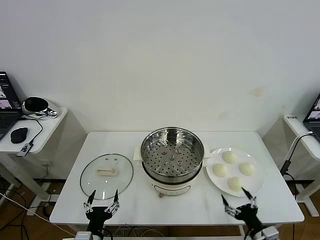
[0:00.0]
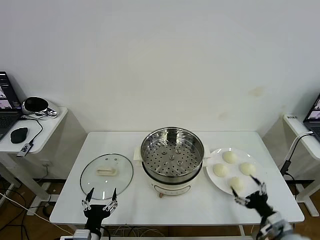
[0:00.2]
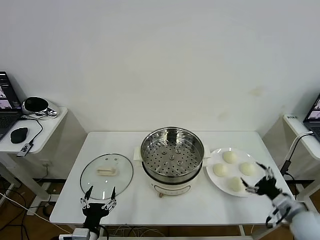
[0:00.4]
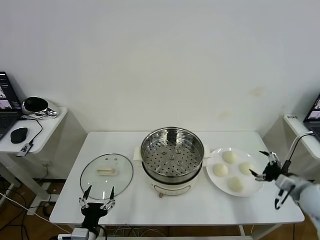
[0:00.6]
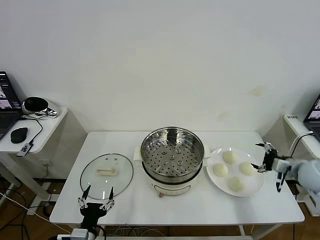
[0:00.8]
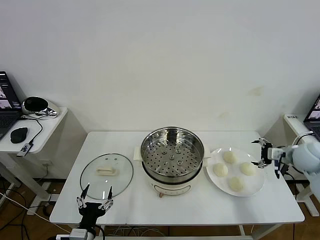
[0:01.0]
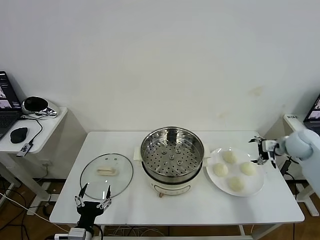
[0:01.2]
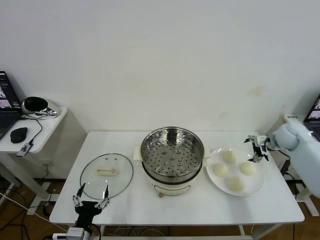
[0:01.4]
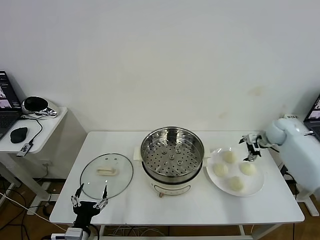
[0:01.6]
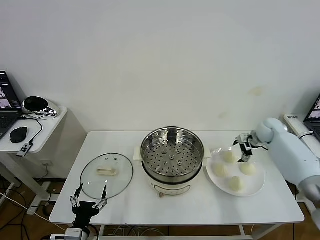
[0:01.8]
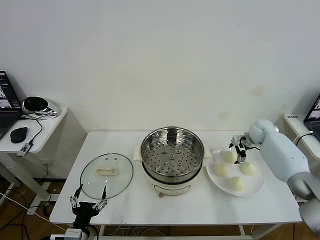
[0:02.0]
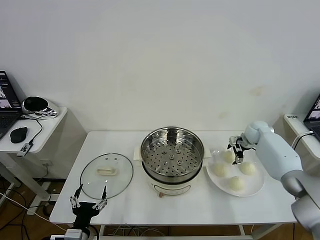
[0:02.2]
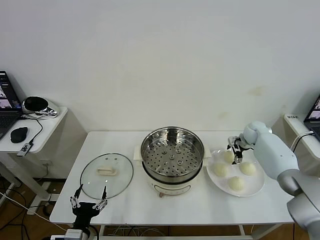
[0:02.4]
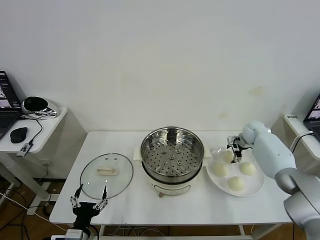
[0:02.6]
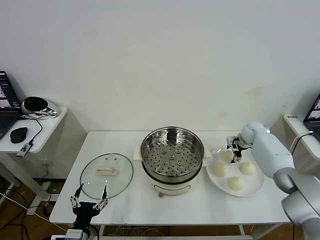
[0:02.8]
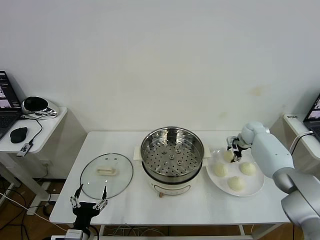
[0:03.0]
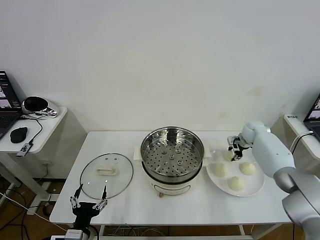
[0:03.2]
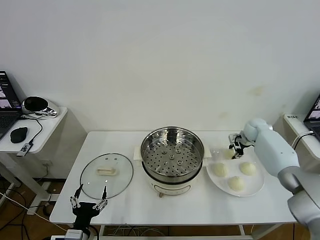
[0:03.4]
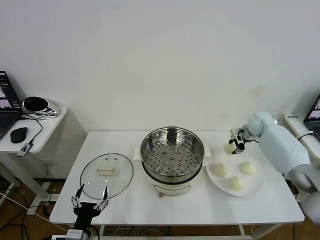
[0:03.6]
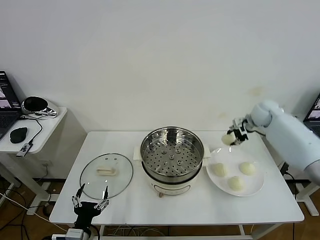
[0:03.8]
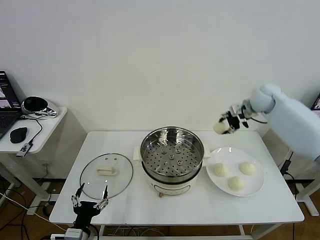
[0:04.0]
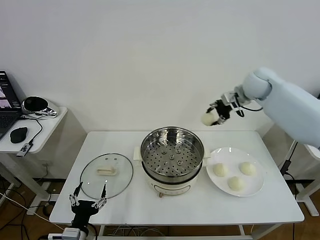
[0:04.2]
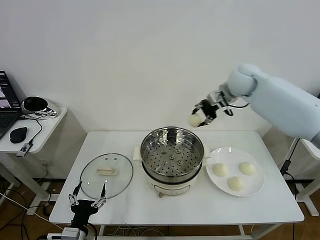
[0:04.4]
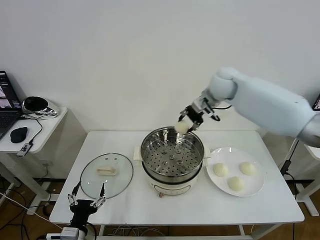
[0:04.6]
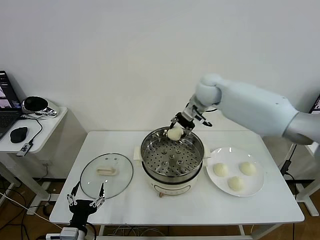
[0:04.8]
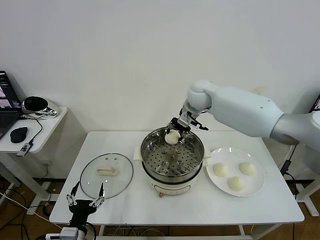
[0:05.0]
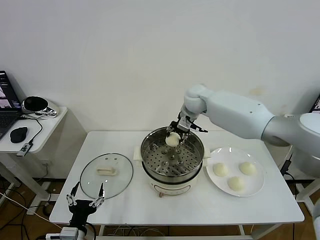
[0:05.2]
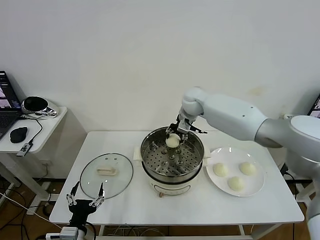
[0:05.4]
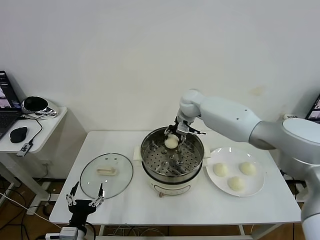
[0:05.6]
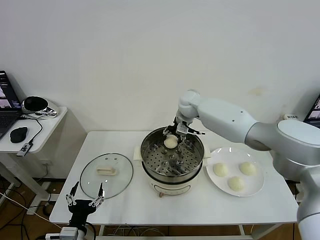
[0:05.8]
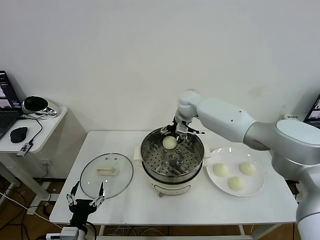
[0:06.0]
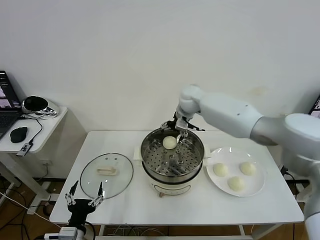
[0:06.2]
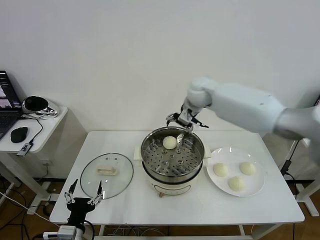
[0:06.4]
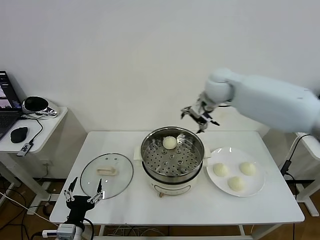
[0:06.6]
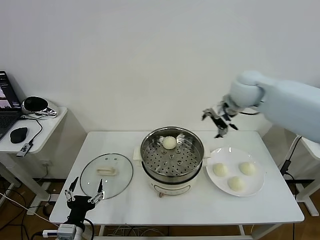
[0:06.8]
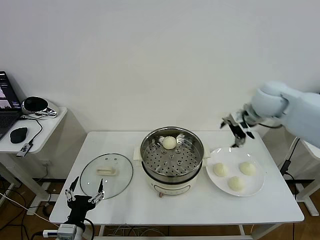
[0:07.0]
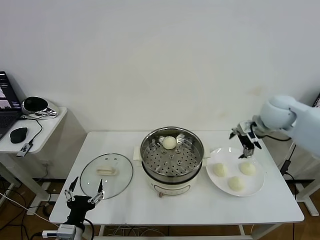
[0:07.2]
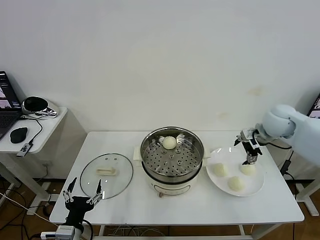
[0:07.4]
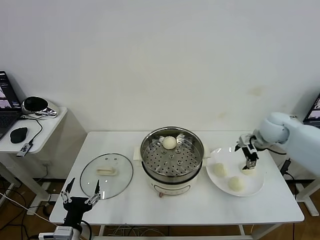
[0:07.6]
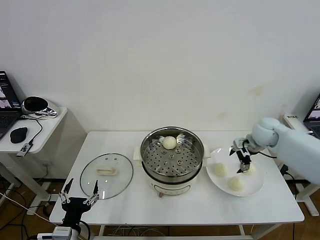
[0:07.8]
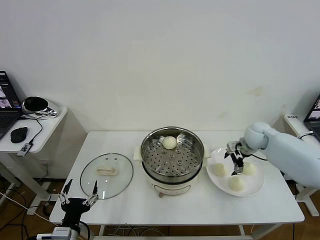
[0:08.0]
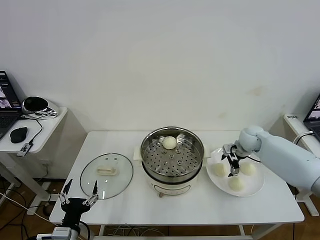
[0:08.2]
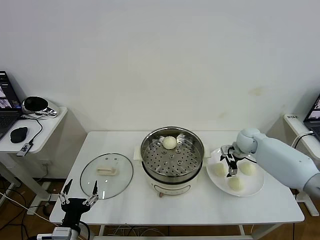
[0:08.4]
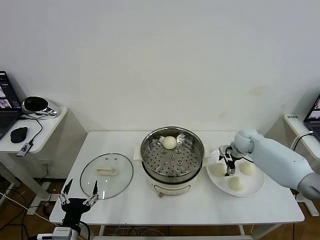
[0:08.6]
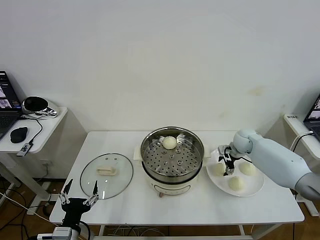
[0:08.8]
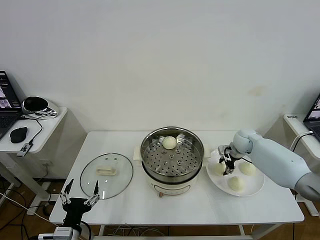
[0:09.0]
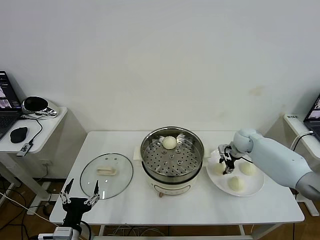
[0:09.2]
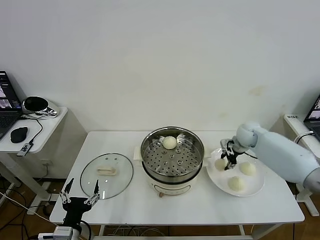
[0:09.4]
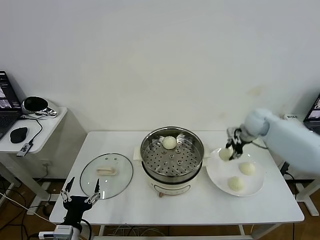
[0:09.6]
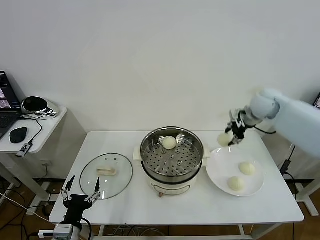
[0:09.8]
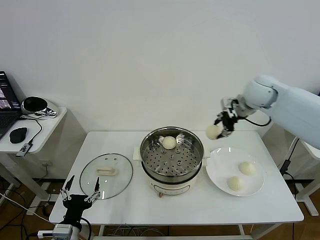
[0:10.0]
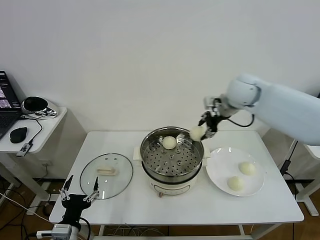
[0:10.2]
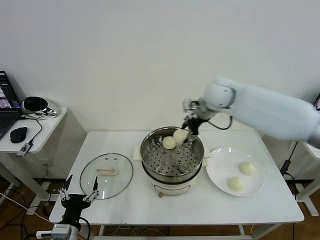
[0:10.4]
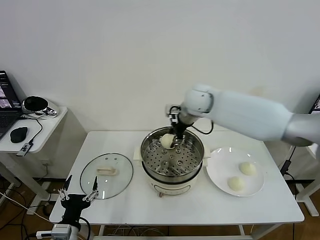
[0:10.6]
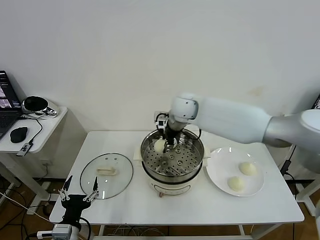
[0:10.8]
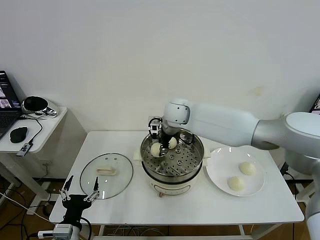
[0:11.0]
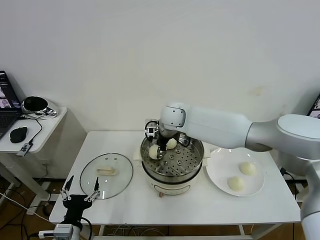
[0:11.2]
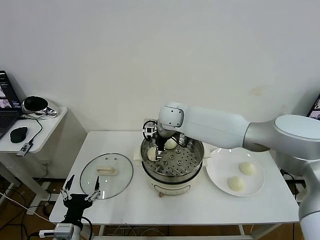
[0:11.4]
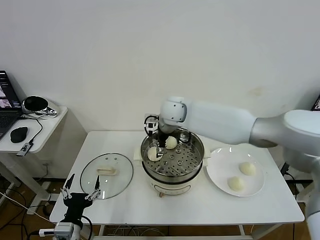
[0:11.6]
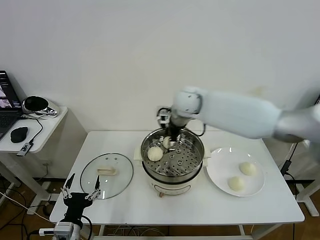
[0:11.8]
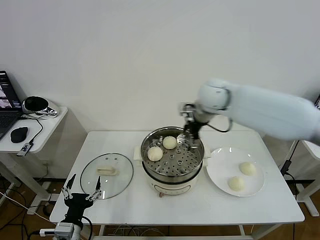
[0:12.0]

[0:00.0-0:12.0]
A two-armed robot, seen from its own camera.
Task of the whole recording: take steamed baozi put them in steamer then cover it.
Step, 0:00.0 to 0:03.0: Grasp the baozi in the plate with right gripper.
Step, 0:03.2 to 0:06.0: Place the baozi on the steamer with right gripper.
Step, 0:06.2 to 0:09.2: Grasp the baozi in the plate with right gripper.
Step, 0:09.4 to 0:11.6: Place the baozi on the steamer with right gripper.
0:01.6 to 0:03.0: The right gripper is displaced downward, forward and to the left by some 10 cm, and closes.
0:03.0 to 0:04.4: The right gripper travels upward and to the left by about 30 cm, and closes.
0:04.4 to 0:06.0: The right gripper shifts approximately 20 cm to the left and downward, and opens its fingers.
0:06.0 to 0:07.6: The right gripper goes approximately 30 cm to the right and backward.
0:07.6 to 0:09.0: The right gripper shifts about 15 cm downward and forward, and closes up.
0:09.0 to 0:10.4: The right gripper travels upward and to the left by approximately 30 cm.
0:10.4 to 0:12.0: The right gripper goes to the left and returns, some 15 cm each way, and opens its fingers.

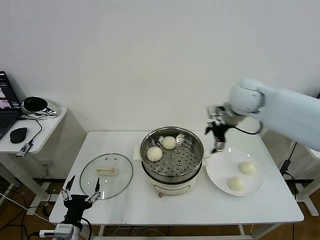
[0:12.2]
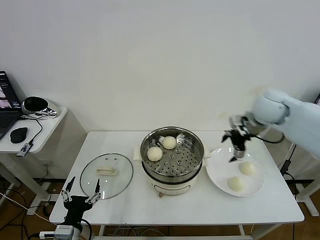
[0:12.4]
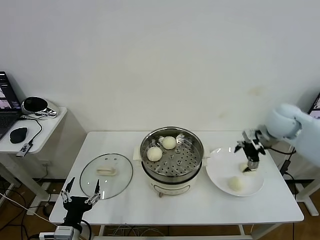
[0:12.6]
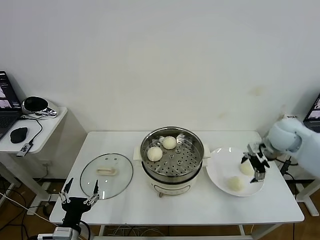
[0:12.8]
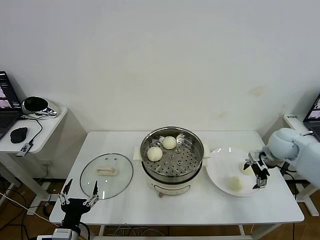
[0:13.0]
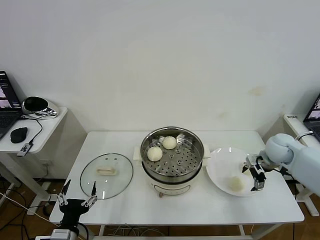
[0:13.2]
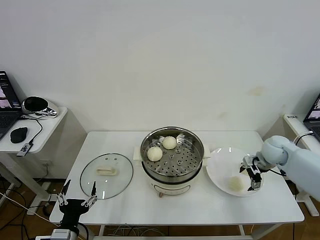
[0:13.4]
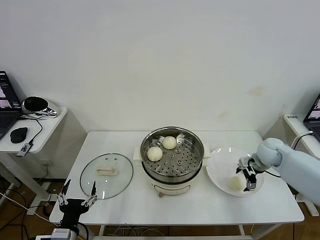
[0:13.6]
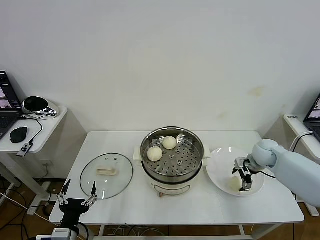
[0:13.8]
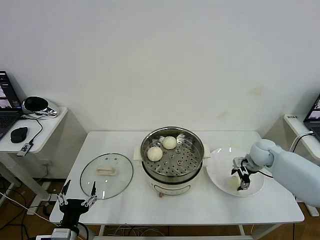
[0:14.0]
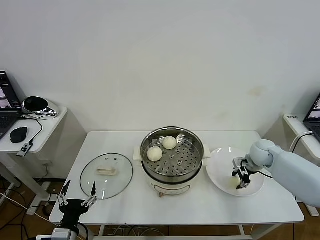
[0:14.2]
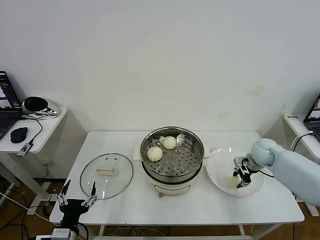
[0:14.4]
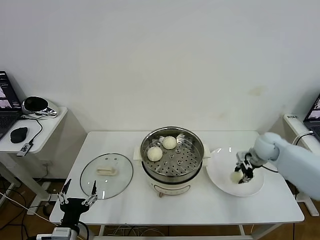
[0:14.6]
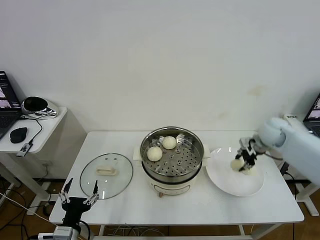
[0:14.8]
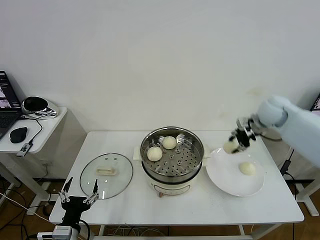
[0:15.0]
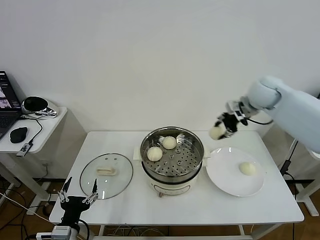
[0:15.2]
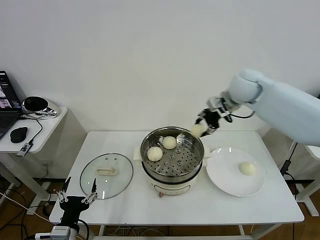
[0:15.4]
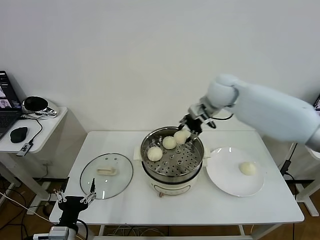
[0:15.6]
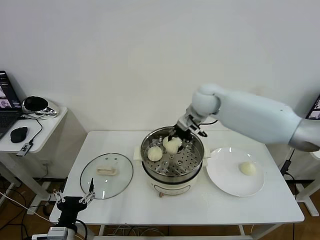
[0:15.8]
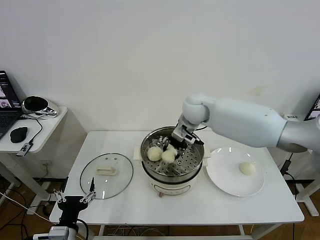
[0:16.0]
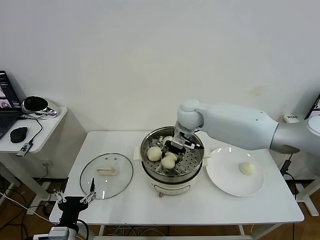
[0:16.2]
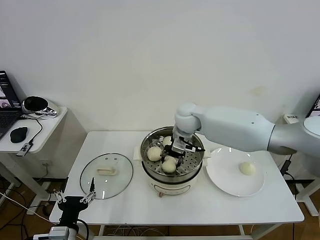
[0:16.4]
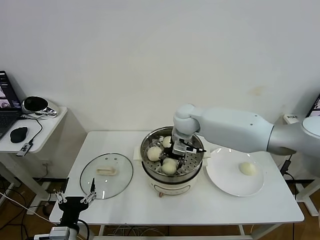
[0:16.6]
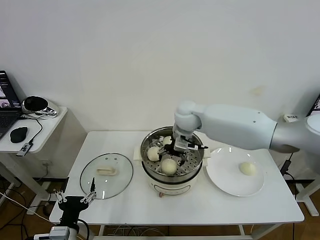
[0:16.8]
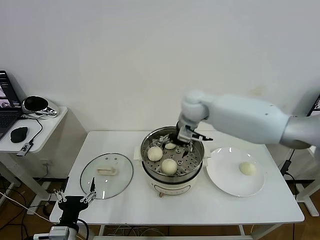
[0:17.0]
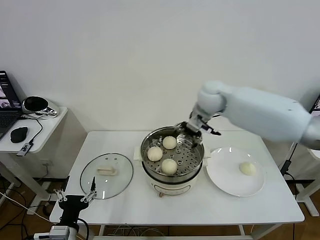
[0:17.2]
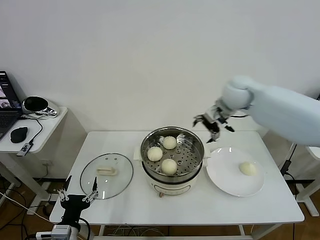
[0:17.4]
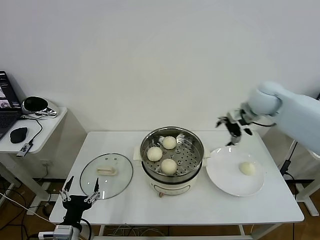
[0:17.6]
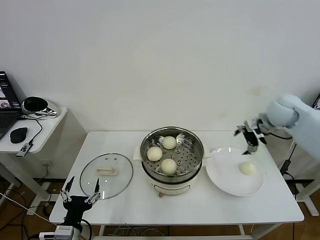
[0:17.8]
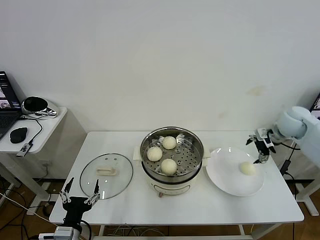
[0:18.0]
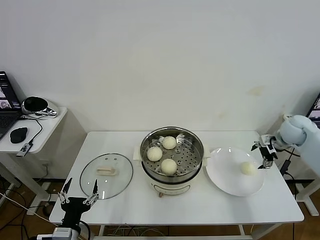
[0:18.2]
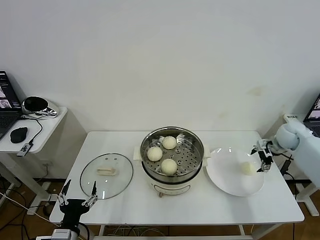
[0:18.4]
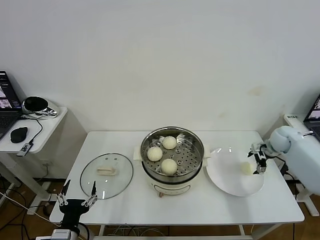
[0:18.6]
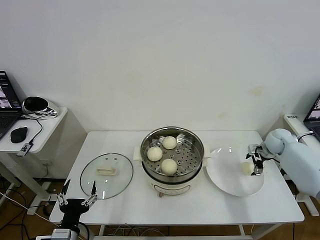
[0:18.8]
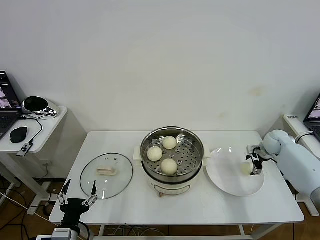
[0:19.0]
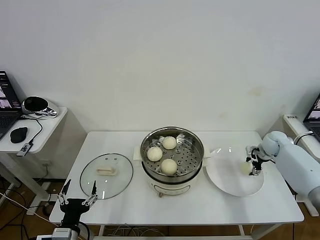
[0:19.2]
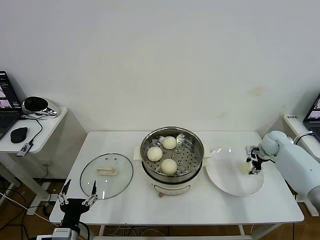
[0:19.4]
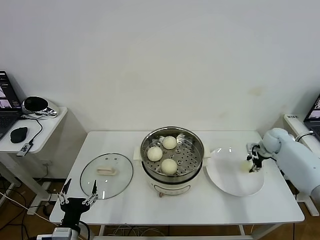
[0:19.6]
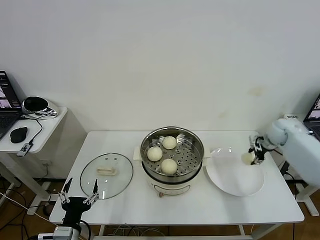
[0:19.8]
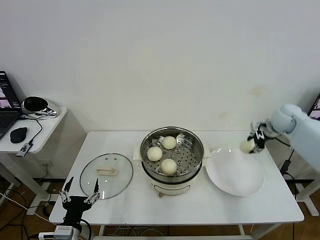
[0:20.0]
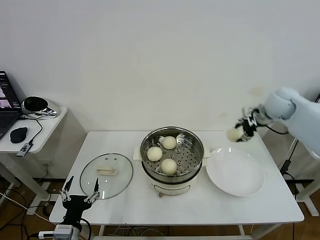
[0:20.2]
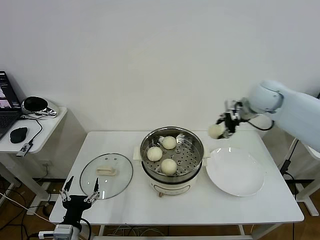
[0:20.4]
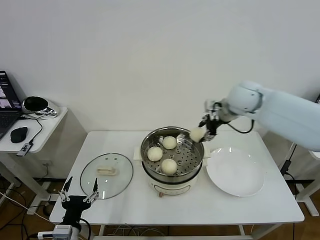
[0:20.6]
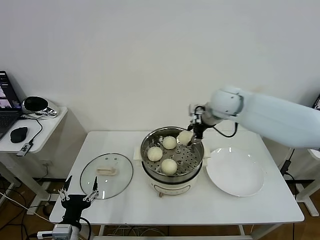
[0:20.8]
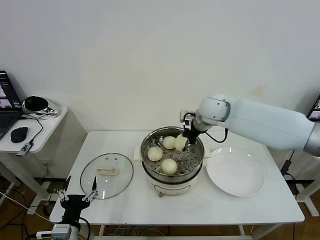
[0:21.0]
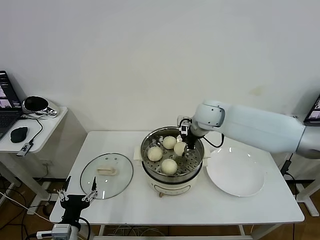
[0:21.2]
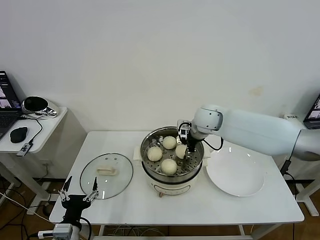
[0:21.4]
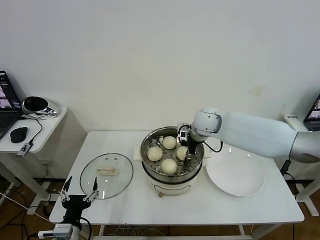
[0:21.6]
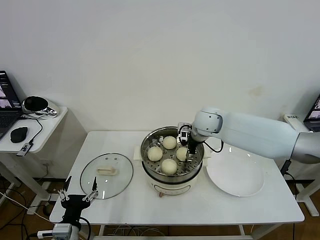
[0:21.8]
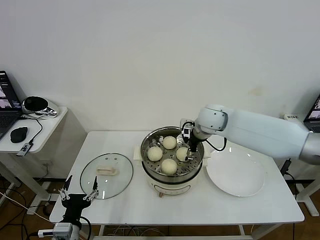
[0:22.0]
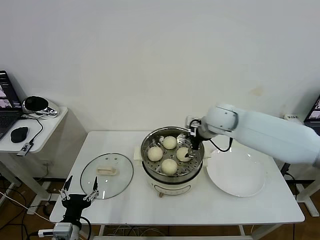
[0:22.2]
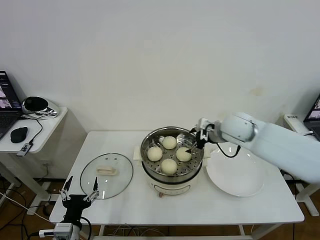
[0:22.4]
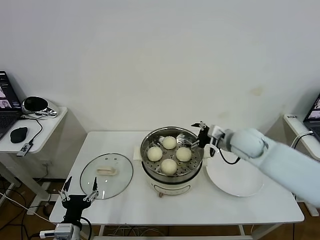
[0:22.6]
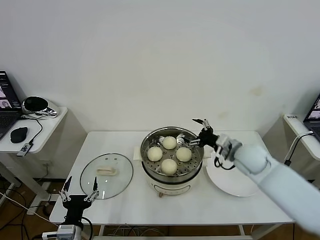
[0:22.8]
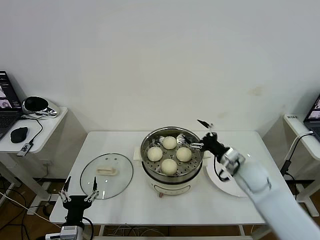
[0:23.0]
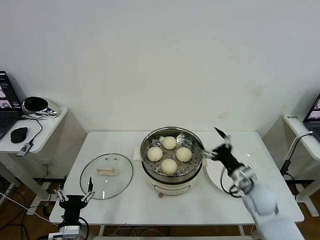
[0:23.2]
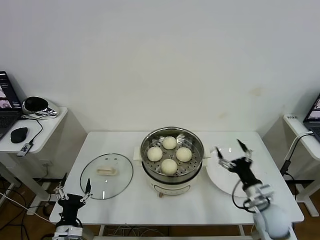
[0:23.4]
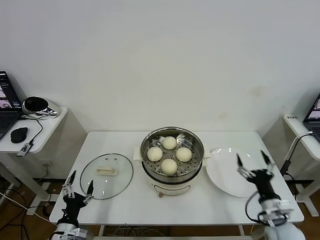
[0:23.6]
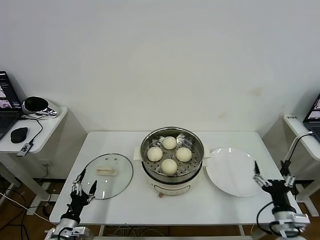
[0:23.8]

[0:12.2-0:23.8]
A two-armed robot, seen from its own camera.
Task of the whole recording: take steamed baozi put them in steamer then cover it.
Step, 0:12.2 to 0:14.4: Grasp the baozi in the plate with right gripper.
Step, 0:14.6 to 0:16.8: Place the baozi on the steamer with right gripper.
Step, 0:17.0 to 0:19.4: Grasp the baozi in the plate with right gripper.
Step, 0:19.6 to 0:22.0: Place the baozi on the steamer with right gripper.
0:12.2 to 0:13.6: The right gripper heads downward and to the right, covering some 25 cm.
0:13.6 to 0:15.0: The right gripper goes approximately 15 cm upward, and closes its fingers.
0:15.0 to 0:16.6: The right gripper heads to the left, covering about 30 cm, and opens its fingers.
0:16.6 to 0:18.0: The right gripper goes approximately 35 cm to the right, and opens.
0:18.0 to 0:19.4: The right gripper goes approximately 15 cm downward, and closes its fingers.
0:19.4 to 0:21.0: The right gripper travels to the left and upward by about 35 cm.
0:21.0 to 0:22.4: The right gripper shifts about 5 cm to the right, and opens its fingers.
0:22.4 to 0:23.8: The right gripper moves backward, downward and to the right, some 40 cm; the left gripper moves downward and to the left, some 10 cm.
